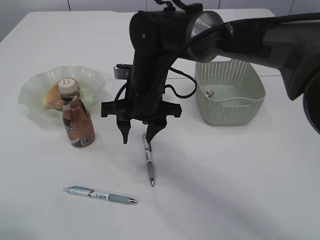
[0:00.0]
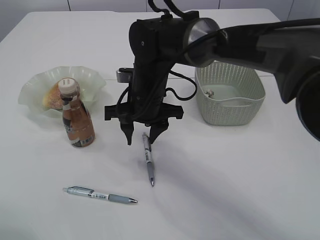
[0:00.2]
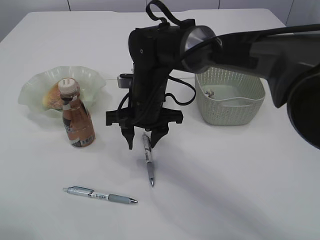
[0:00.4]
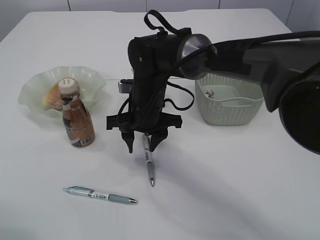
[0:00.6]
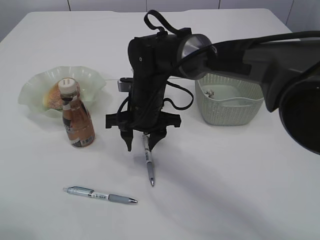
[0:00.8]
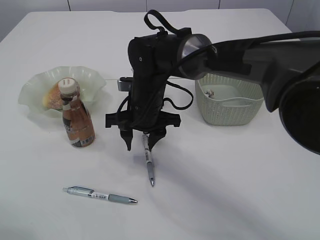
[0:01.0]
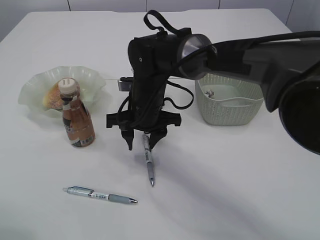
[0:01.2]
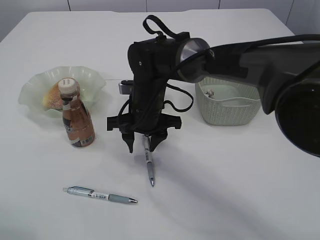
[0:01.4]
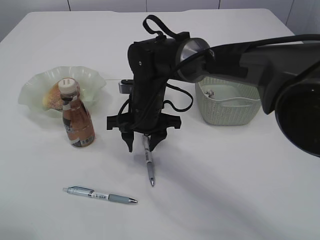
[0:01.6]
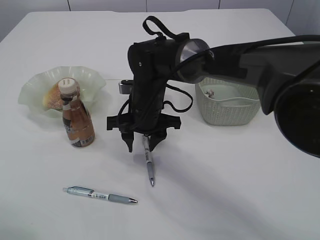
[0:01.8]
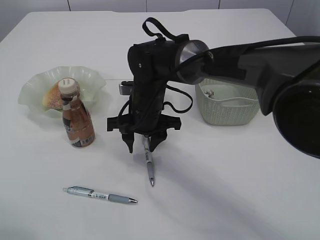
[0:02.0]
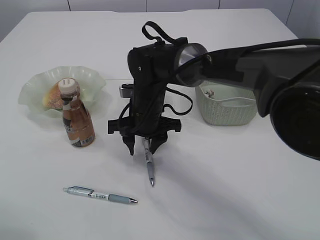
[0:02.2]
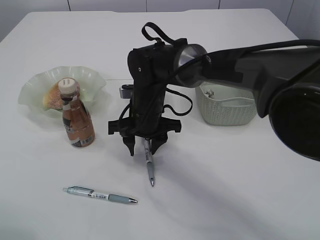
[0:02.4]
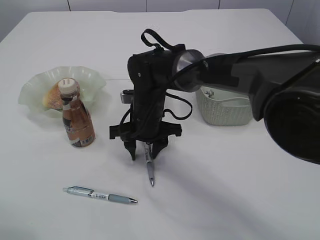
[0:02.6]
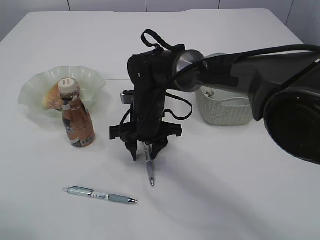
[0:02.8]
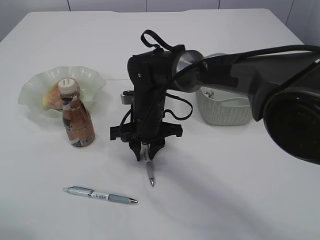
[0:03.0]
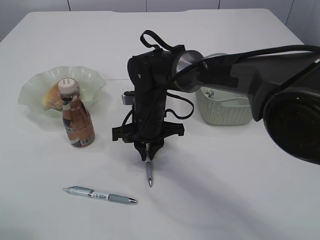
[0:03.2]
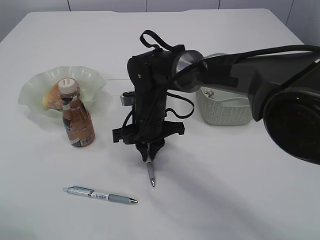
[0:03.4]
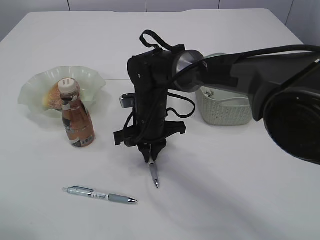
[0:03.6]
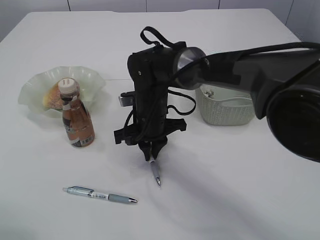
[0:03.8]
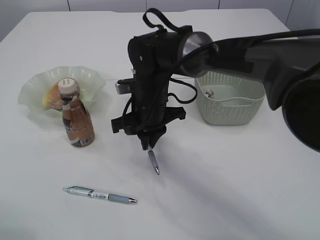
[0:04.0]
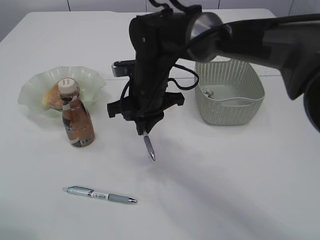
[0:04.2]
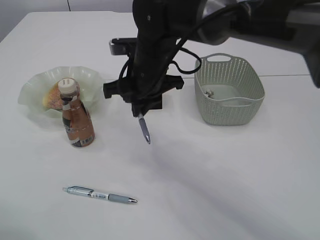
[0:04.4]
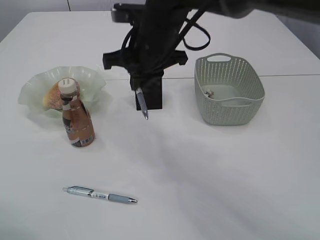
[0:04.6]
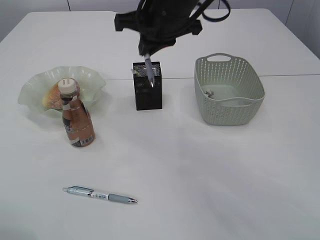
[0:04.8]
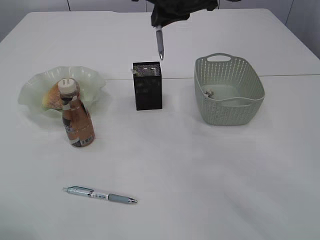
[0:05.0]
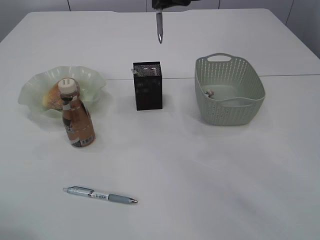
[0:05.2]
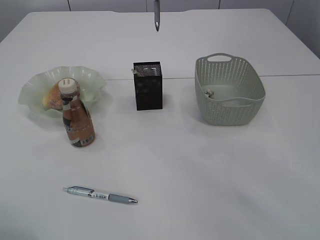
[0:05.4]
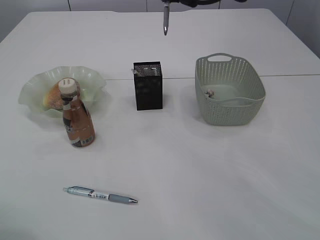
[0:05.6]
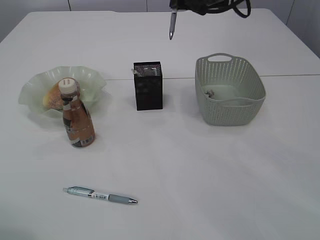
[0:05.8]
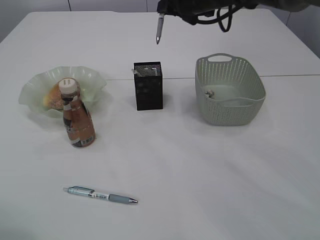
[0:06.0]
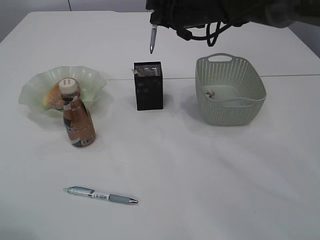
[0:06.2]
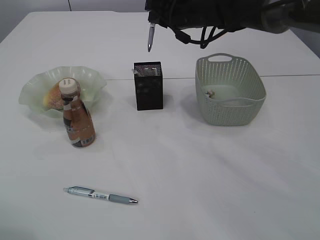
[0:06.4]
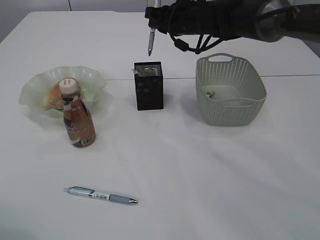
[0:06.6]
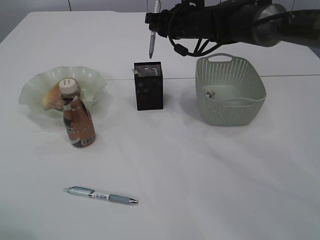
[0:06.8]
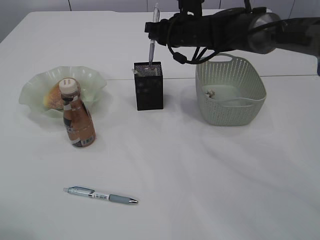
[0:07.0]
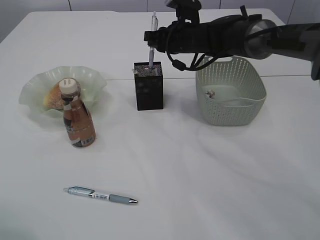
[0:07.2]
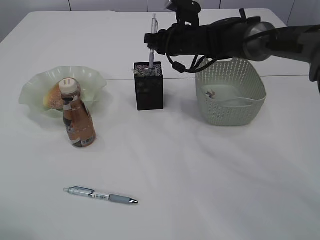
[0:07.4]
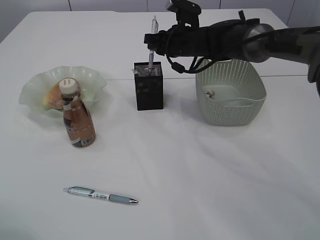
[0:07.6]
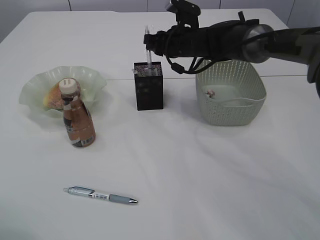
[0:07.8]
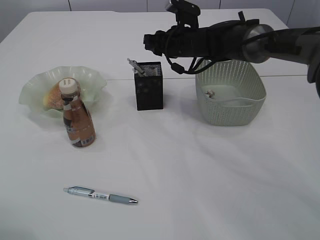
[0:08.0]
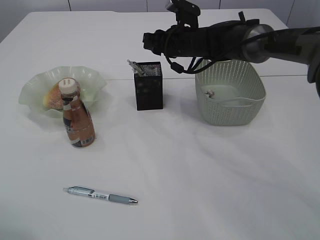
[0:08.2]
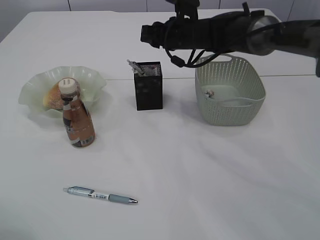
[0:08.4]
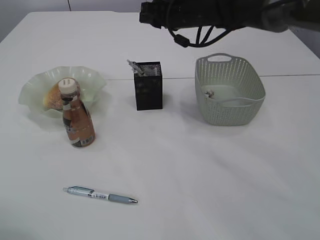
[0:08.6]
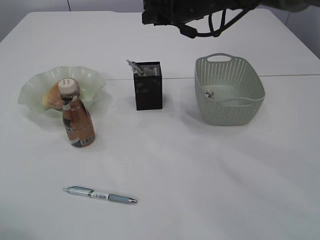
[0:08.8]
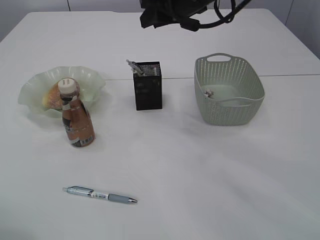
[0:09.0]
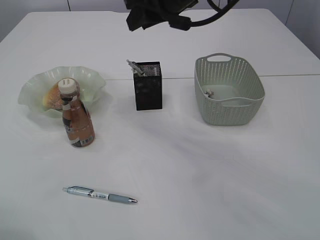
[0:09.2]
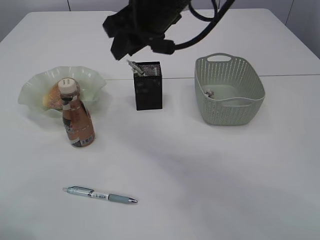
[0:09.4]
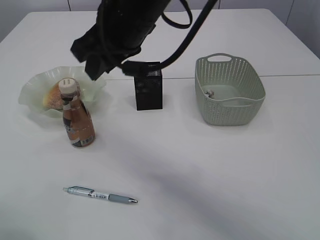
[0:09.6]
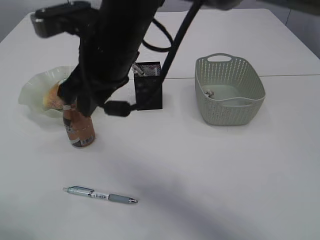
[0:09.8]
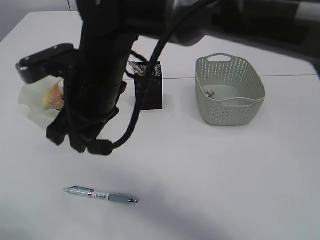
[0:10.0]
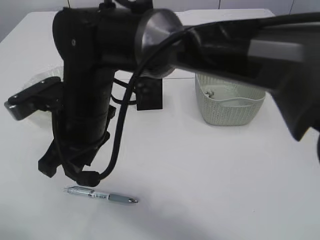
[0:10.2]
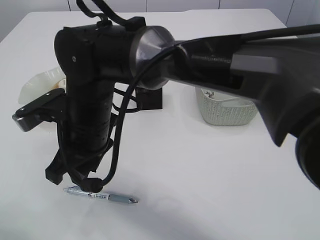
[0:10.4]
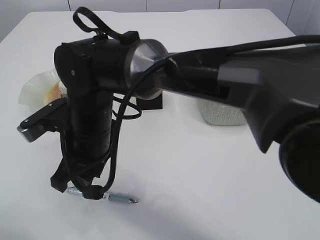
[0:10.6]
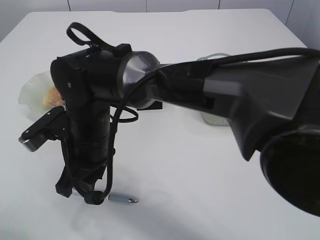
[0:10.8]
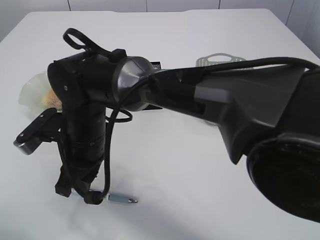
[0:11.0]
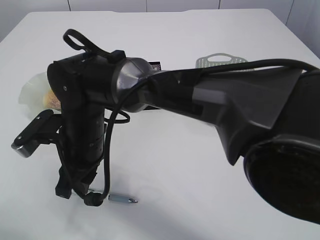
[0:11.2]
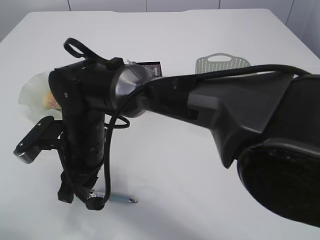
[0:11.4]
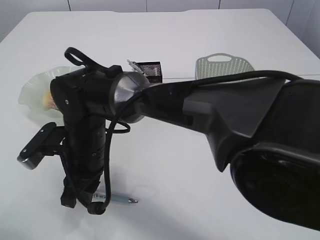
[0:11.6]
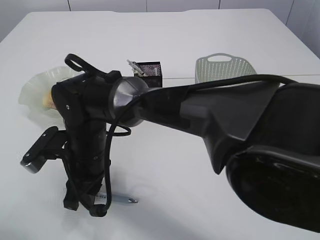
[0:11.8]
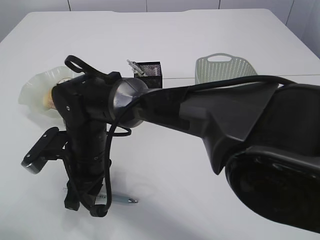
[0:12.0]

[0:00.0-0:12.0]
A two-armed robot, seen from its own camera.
Step, 0:00.0 to 0:04.4: Pick up the pen with right arm.
Step, 0:04.6 to 0:08.0: Place the pen into the pen holder.
0:00.0 to 0:01.6: The grippers make only small movements.
0:01.6 to 0:03.0: The grippers stay close to where they were, moving slightly.
0:03.0 to 0:04.4: The right gripper moves upward, about 10 cm.
0:04.4 to 0:06.0: The right gripper moves forward, to the right and upward, roughly 15 cm.
0:06.0 to 0:07.6: The right gripper is displaced downward by about 10 cm.
0:07.6 to 0:09.0: The right gripper travels upward and backward by roughly 15 cm.
0:09.0 to 0:10.4: The right gripper is displaced to the left, backward and downward by approximately 25 cm.
0:10.4 to 0:12.0: The right gripper moves downward, about 5 cm.

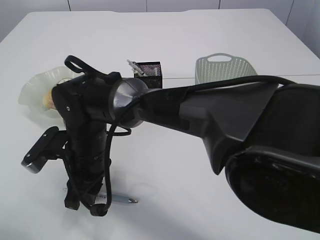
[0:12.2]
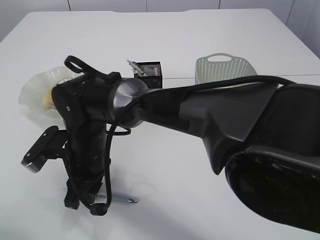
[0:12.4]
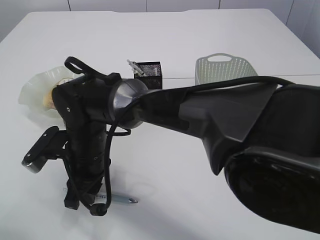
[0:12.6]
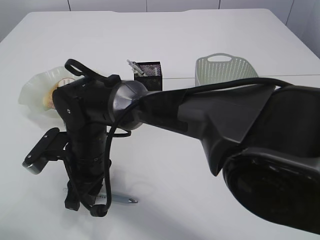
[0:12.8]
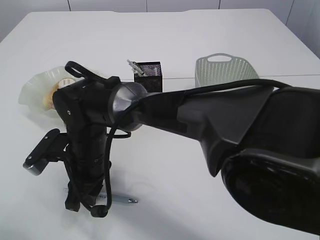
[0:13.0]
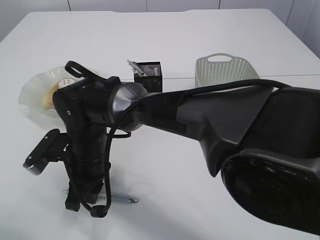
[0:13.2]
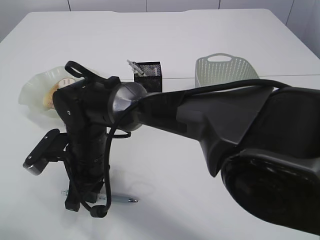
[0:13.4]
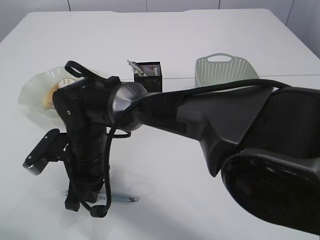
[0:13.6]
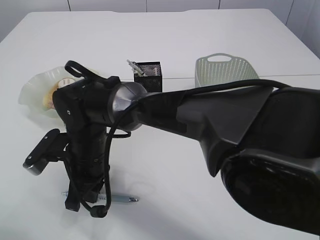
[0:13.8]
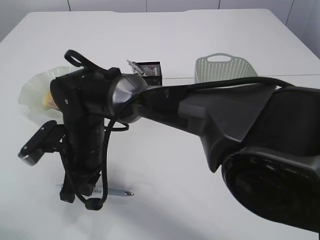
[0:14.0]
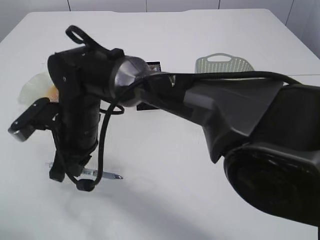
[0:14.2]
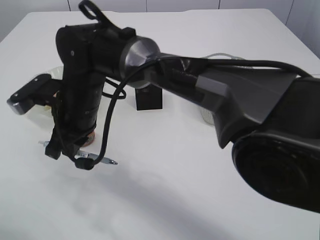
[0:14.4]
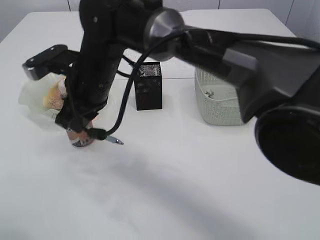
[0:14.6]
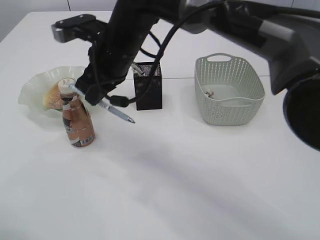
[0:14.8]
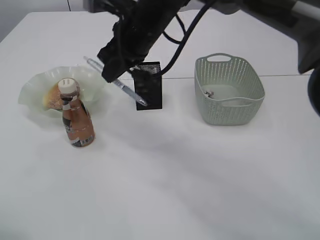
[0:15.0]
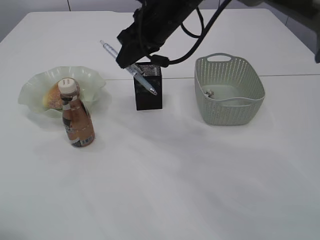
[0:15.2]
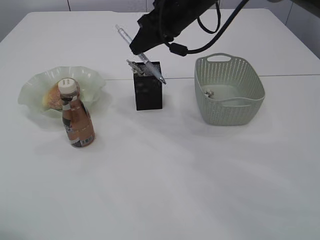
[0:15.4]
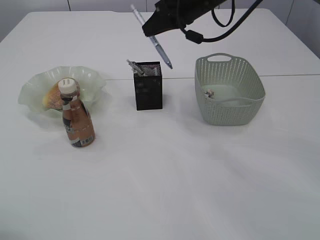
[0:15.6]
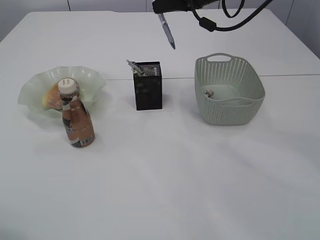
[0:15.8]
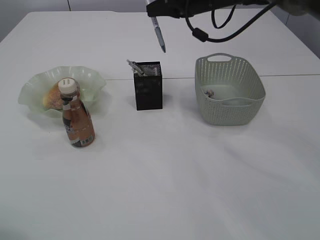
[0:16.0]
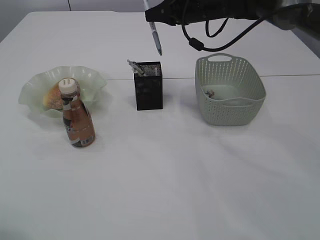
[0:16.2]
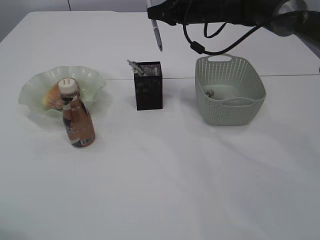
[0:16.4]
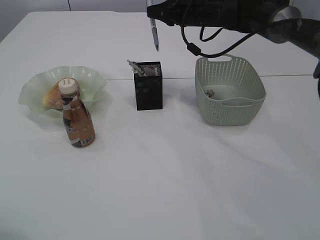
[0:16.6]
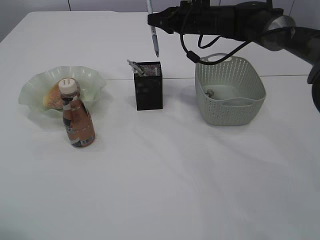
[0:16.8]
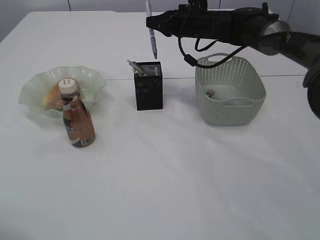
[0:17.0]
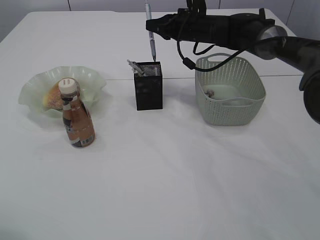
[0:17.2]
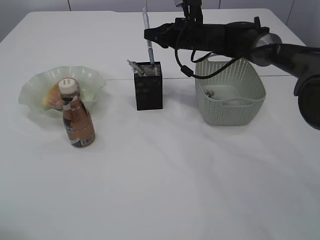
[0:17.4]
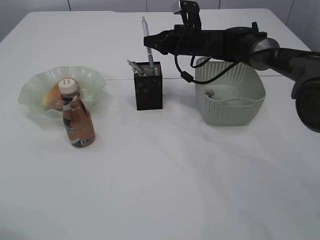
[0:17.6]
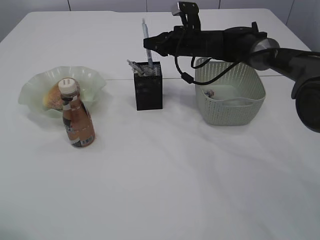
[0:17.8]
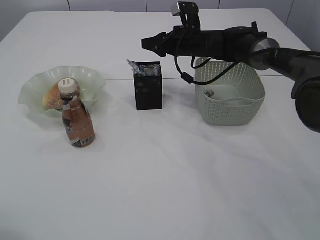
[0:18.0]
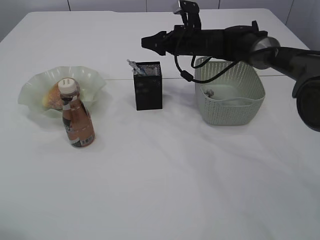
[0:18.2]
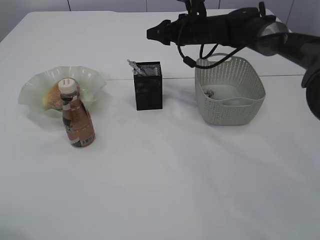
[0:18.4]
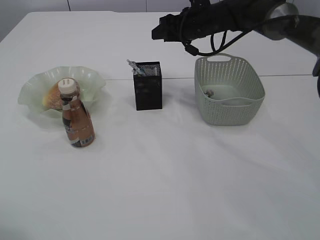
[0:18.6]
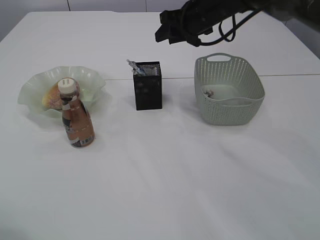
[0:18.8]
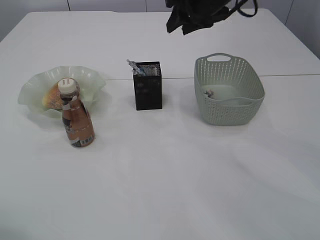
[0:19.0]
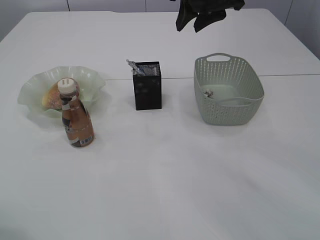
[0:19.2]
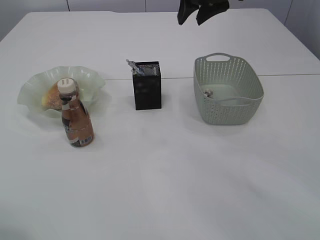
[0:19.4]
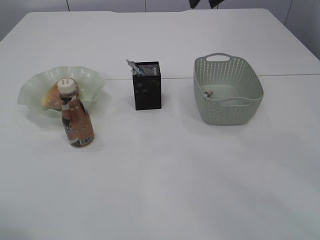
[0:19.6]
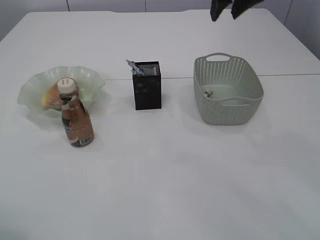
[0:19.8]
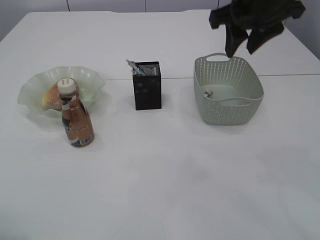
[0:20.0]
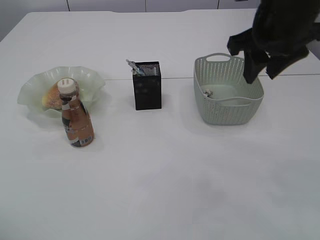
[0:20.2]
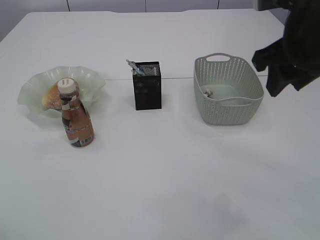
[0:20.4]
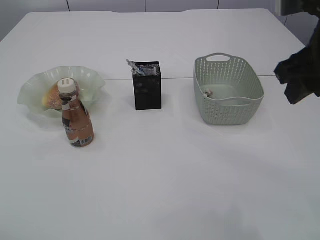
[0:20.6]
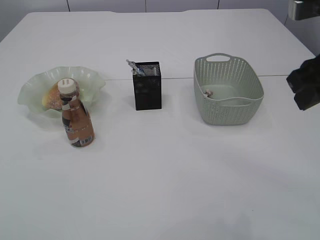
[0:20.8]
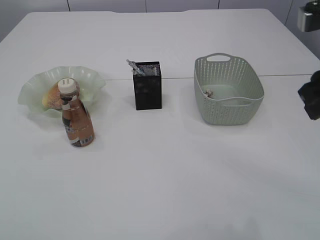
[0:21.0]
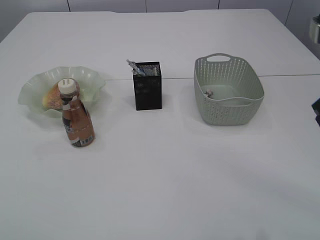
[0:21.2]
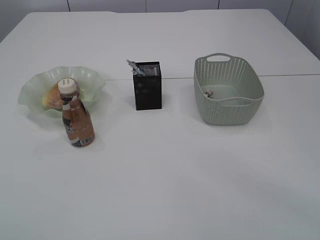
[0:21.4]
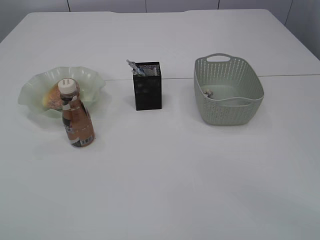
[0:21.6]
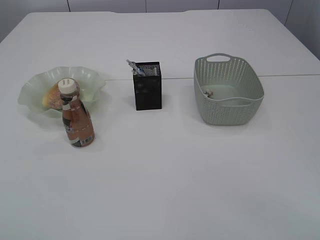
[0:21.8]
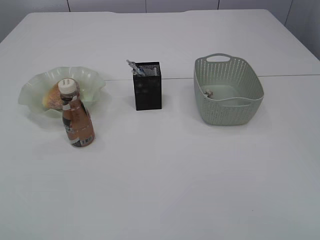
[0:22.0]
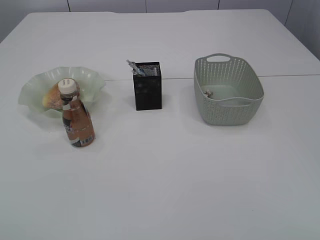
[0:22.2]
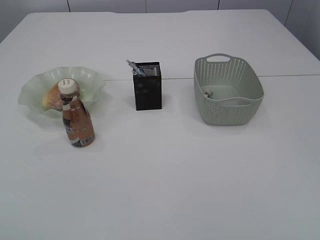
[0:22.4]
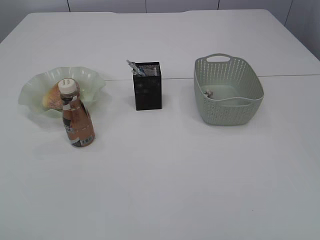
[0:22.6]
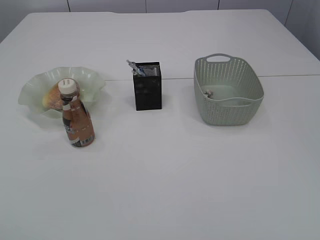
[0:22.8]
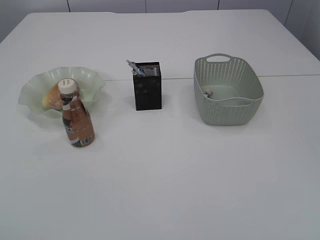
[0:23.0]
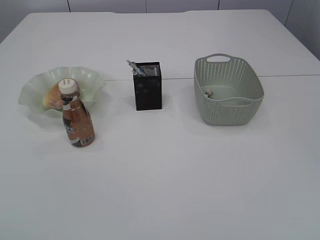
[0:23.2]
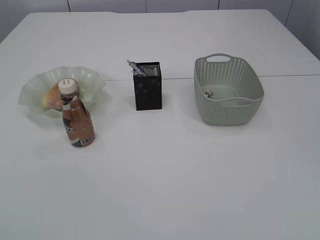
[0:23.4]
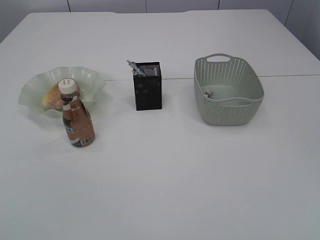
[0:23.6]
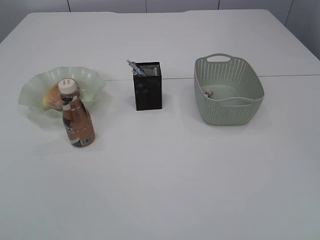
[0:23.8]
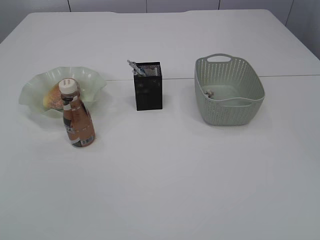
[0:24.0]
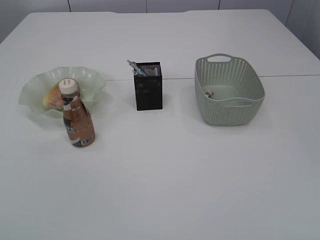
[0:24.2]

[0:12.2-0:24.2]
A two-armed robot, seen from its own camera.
Step, 0:12.2 to 0:14.4: Pick up the pen with right arm.
Step, 0:14.6 to 0:18.2: Place the pen into the pen holder.
0:12.2 to 0:13.8: The right gripper closes its fingers.
0:13.8 to 0:15.2: The right gripper travels upward, to the right and forward by approximately 25 cm.
0:15.2 to 0:16.6: The right gripper shifts approximately 15 cm forward and to the right.
0:16.6 to 0:18.2: The right gripper shifts some 5 cm downward, and opens.
0:18.2 to 0:19.8: The right gripper is displaced upward and backward by roughly 25 cm.
0:19.8 to 0:21.2: The right gripper moves backward, roughly 20 cm.
